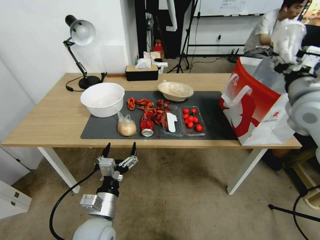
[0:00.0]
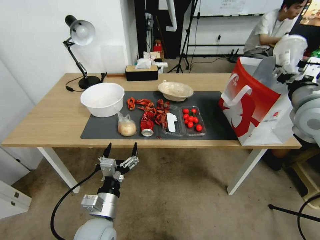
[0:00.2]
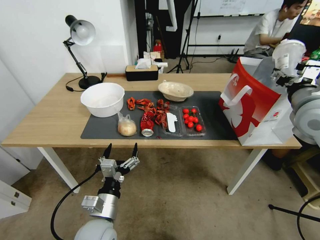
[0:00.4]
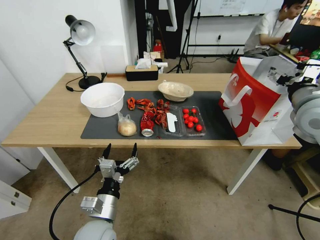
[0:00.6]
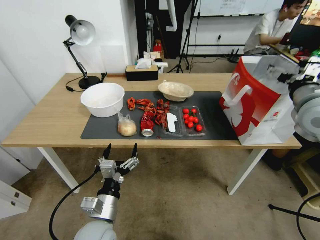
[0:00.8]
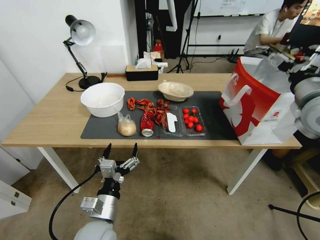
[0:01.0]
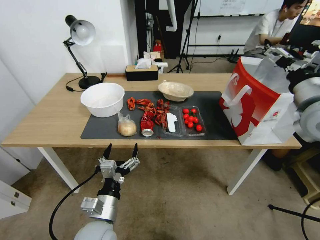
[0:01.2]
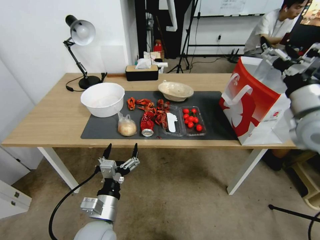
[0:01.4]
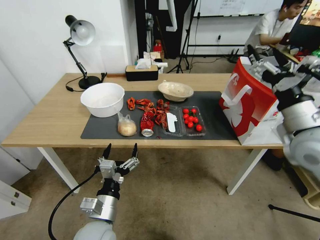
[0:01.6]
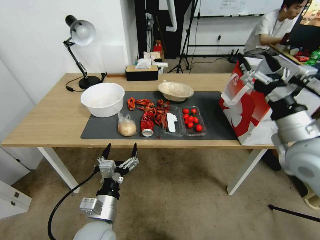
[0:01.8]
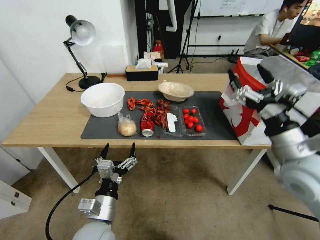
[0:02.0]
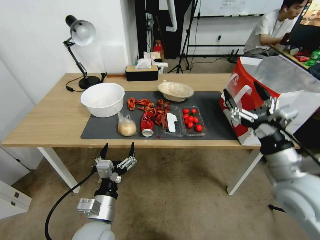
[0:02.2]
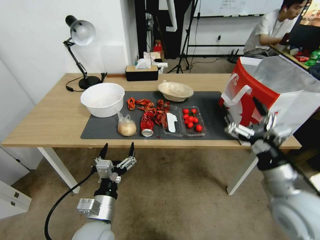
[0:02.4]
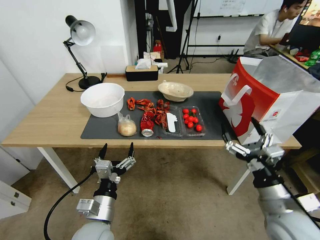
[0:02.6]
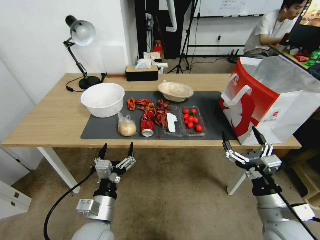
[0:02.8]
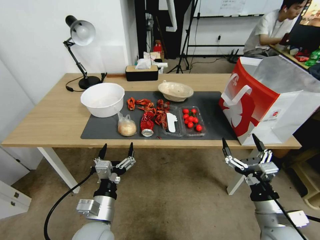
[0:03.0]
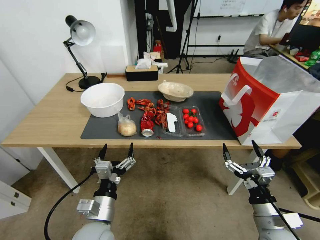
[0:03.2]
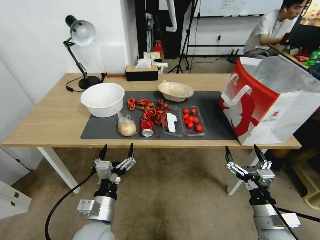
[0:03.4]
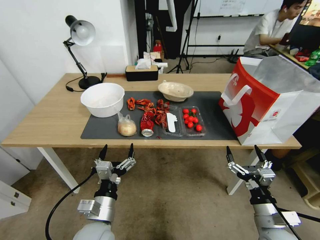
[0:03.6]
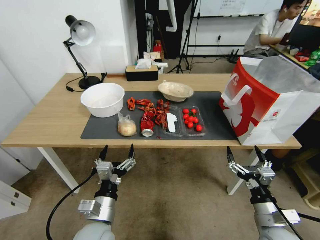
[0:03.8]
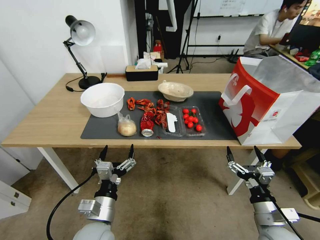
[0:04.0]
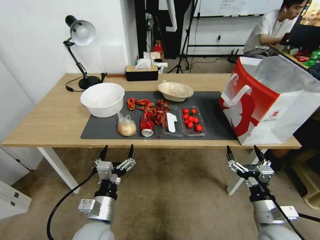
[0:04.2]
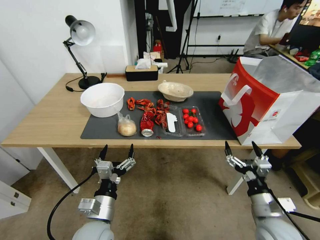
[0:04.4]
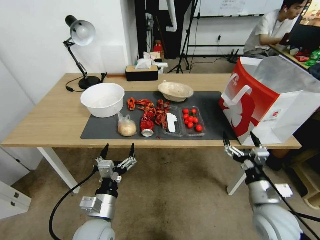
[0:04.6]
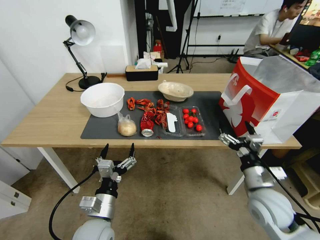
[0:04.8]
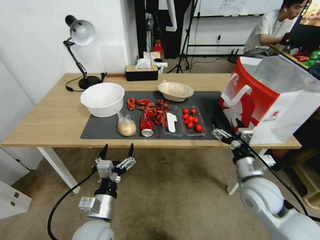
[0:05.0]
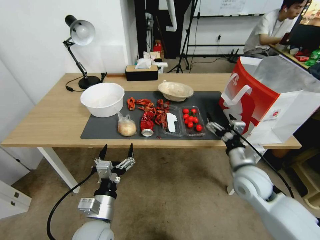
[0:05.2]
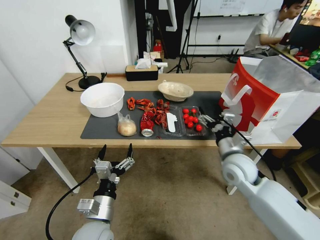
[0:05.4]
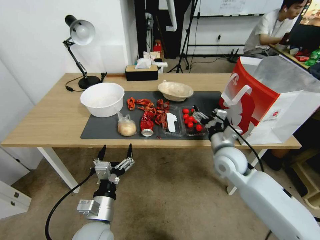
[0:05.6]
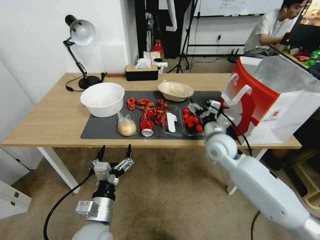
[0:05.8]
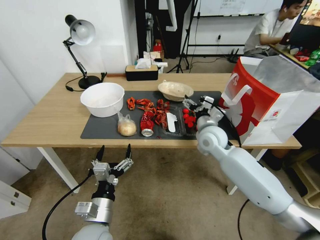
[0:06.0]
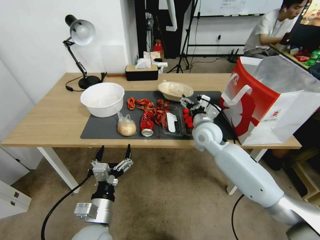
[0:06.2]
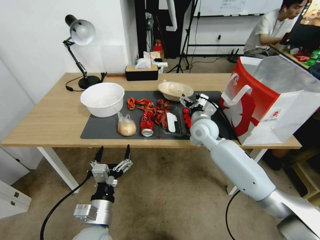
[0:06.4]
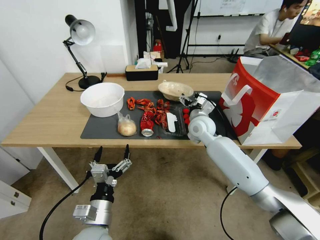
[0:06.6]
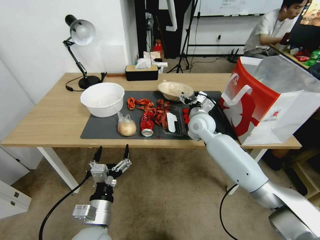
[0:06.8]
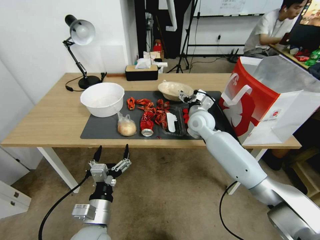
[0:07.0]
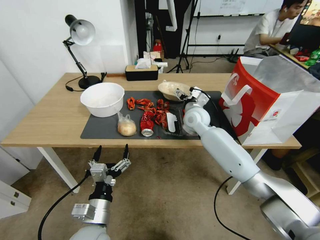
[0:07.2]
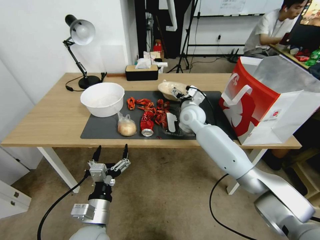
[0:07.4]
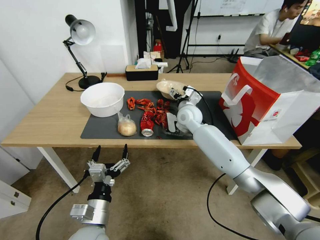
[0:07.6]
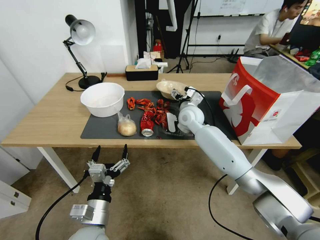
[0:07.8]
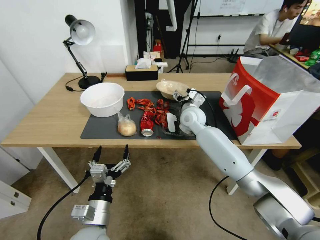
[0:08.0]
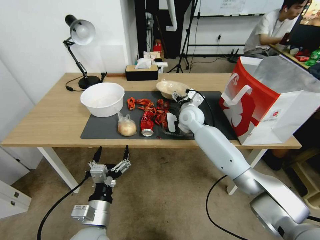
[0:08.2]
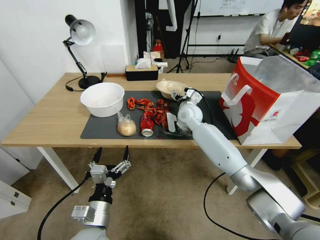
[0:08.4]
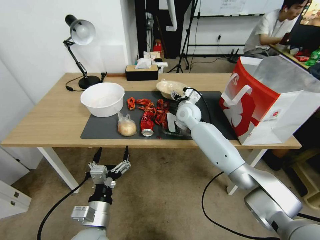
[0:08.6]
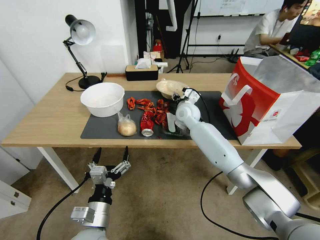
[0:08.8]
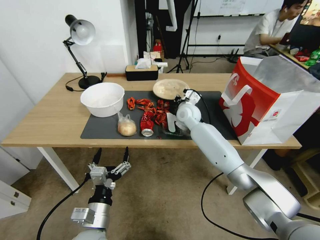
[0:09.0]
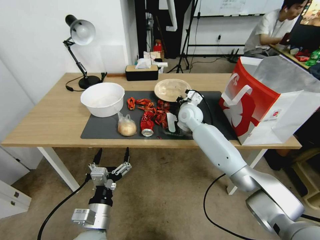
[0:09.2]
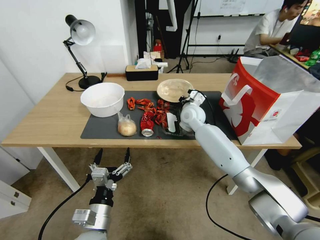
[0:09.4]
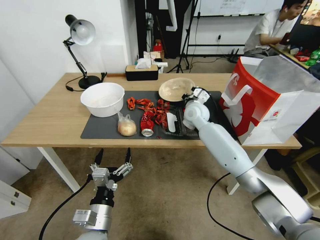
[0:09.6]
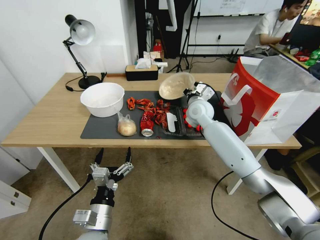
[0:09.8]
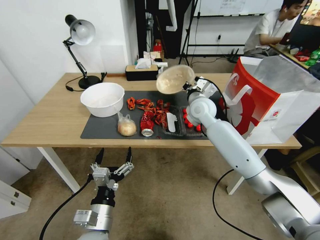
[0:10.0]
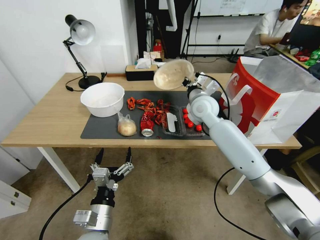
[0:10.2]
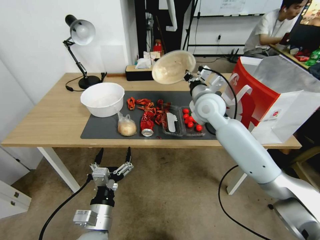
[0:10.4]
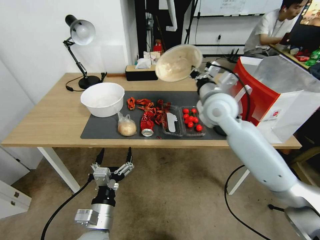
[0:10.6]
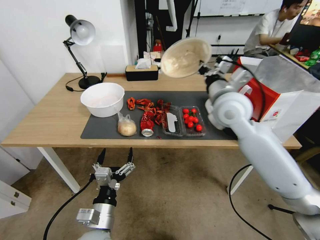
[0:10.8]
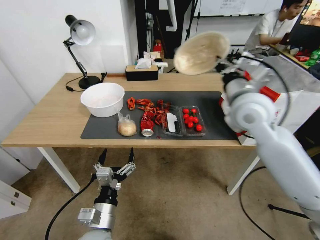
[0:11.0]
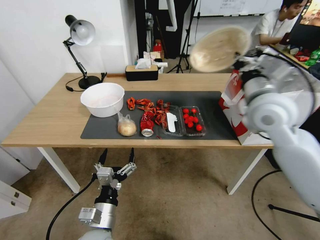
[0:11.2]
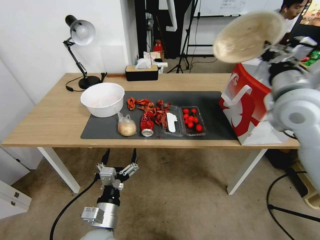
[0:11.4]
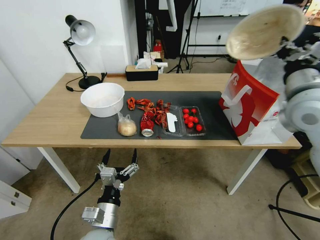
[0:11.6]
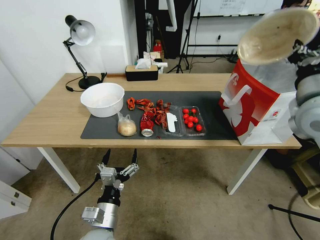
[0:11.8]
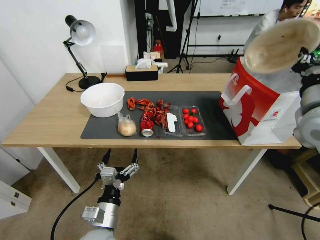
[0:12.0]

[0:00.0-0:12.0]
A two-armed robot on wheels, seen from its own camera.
0:00.0 to 0:01.6: The right gripper goes some 5 cm backward, and opens.
0:01.6 to 0:03.0: The right gripper shifts some 25 cm downward and backward.
0:03.0 to 0:04.4: There are only small adjustments of the grippers.
0:04.4 to 0:06.0: The right gripper is displaced forward and to the left by approximately 30 cm.
0:06.0 to 0:07.6: The right gripper moves forward and to the left, roughly 10 cm.
0:07.6 to 0:09.0: The right gripper closes up.
0:09.0 to 0:10.4: The right gripper goes roughly 15 cm upward and backward.
0:10.4 to 0:12.0: The right gripper moves to the right and backward, roughly 25 cm.

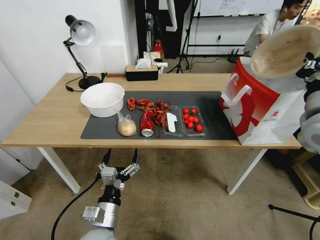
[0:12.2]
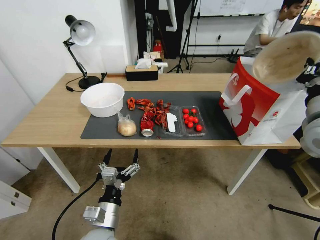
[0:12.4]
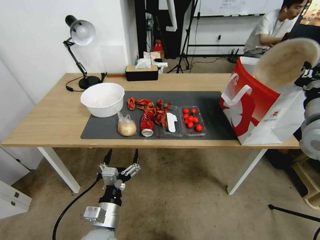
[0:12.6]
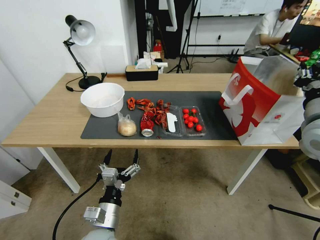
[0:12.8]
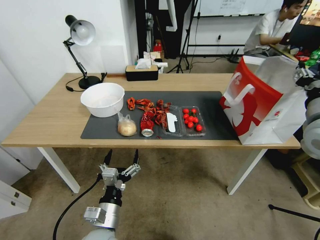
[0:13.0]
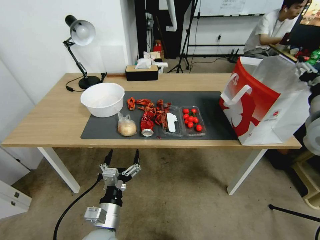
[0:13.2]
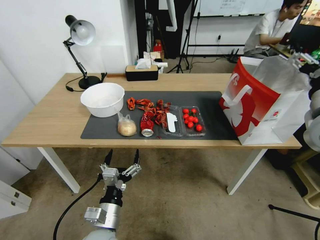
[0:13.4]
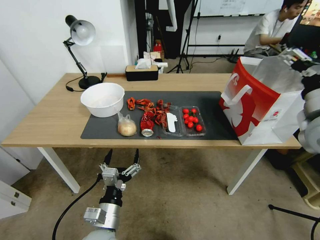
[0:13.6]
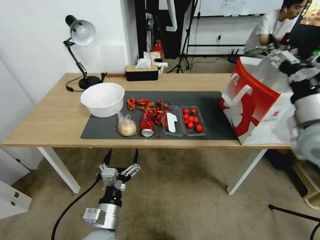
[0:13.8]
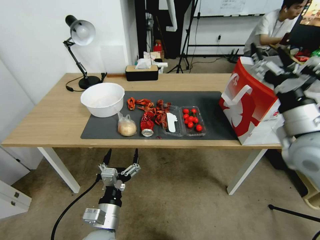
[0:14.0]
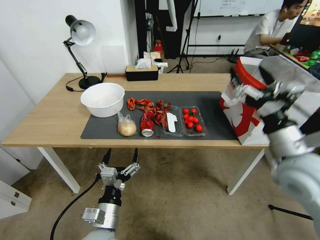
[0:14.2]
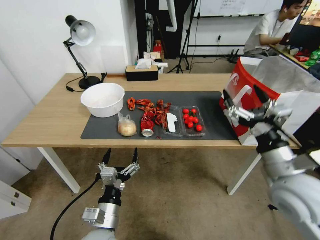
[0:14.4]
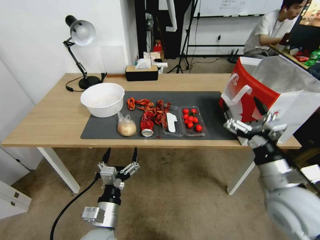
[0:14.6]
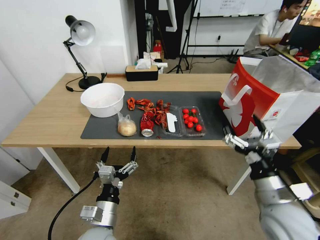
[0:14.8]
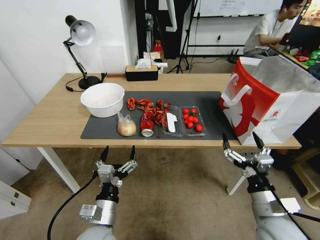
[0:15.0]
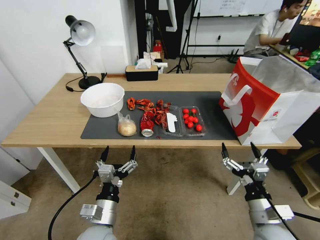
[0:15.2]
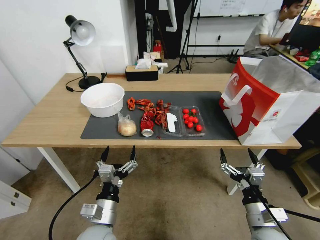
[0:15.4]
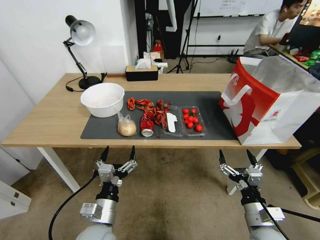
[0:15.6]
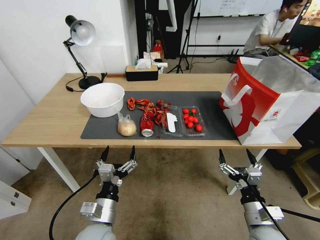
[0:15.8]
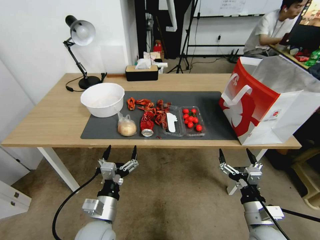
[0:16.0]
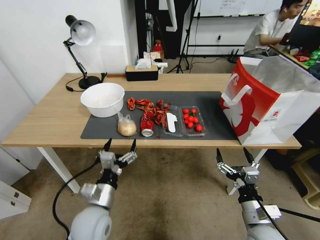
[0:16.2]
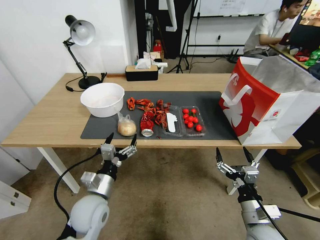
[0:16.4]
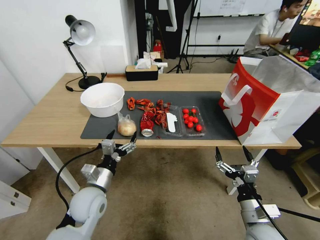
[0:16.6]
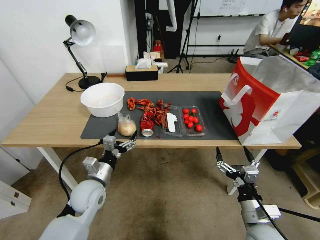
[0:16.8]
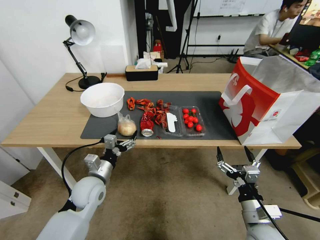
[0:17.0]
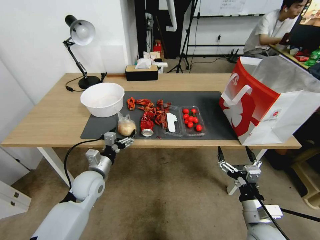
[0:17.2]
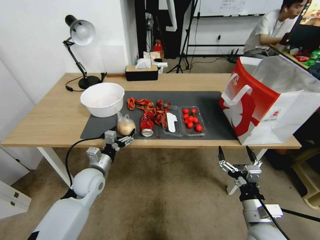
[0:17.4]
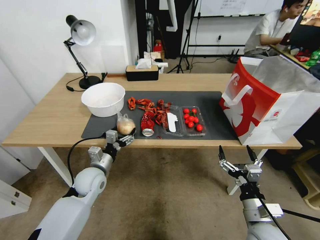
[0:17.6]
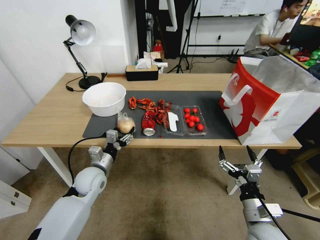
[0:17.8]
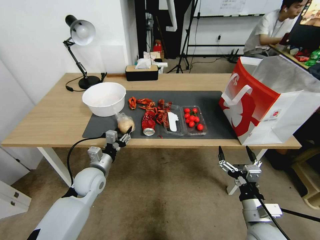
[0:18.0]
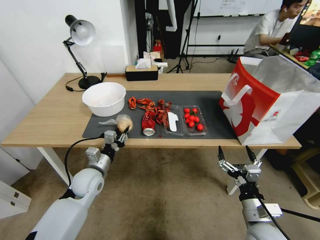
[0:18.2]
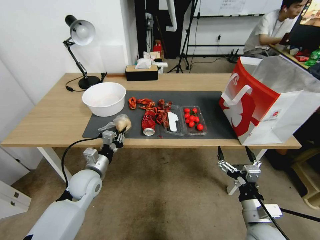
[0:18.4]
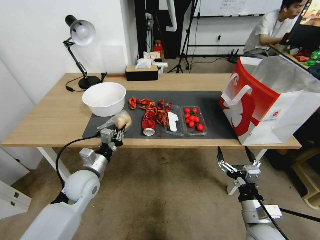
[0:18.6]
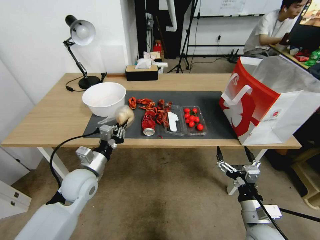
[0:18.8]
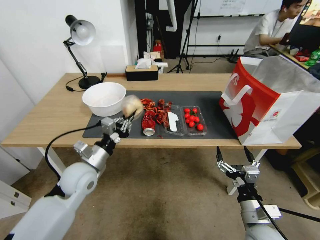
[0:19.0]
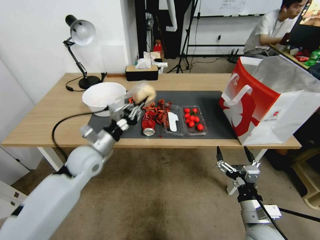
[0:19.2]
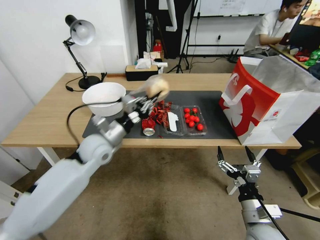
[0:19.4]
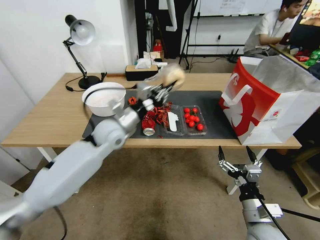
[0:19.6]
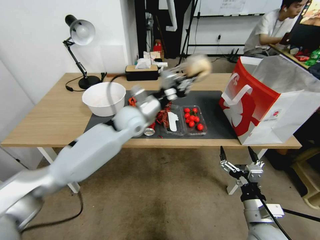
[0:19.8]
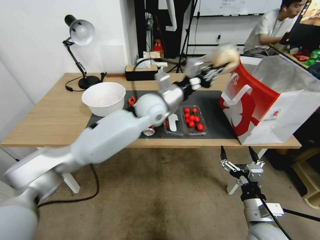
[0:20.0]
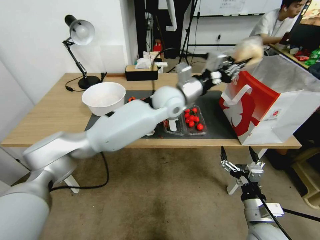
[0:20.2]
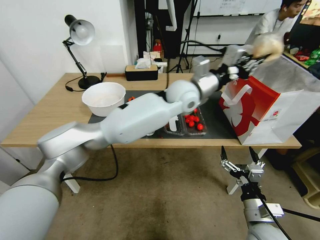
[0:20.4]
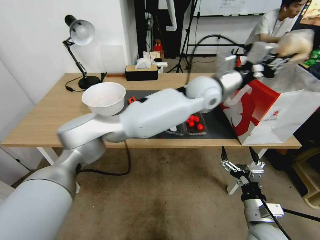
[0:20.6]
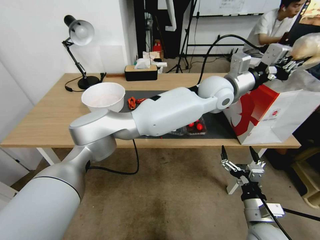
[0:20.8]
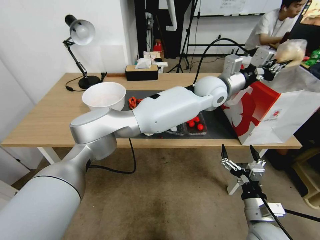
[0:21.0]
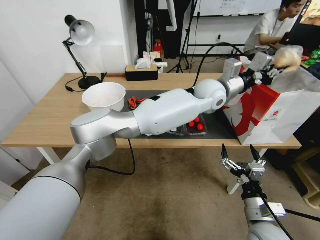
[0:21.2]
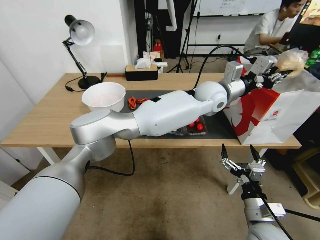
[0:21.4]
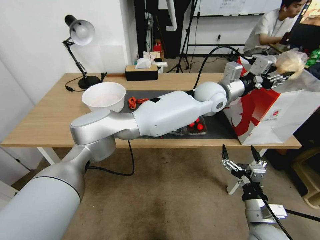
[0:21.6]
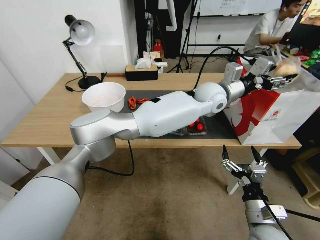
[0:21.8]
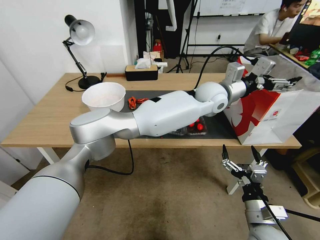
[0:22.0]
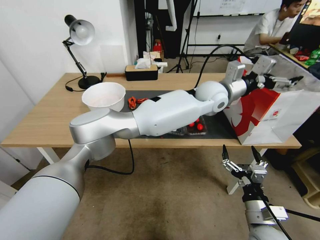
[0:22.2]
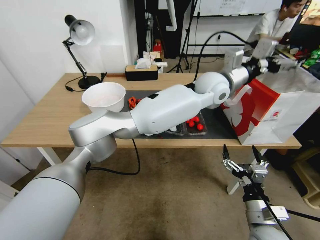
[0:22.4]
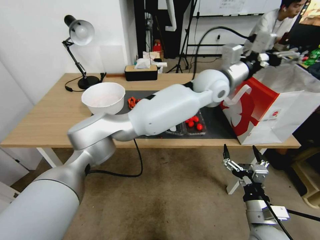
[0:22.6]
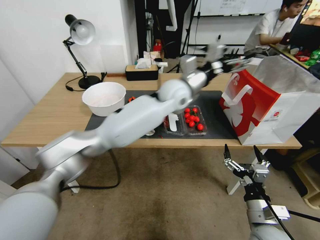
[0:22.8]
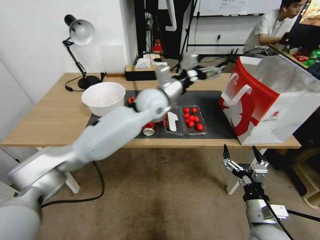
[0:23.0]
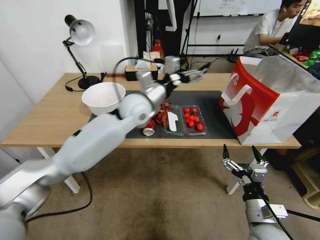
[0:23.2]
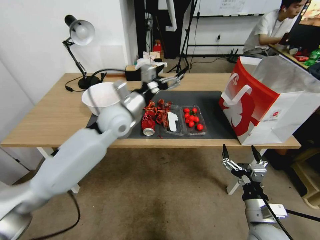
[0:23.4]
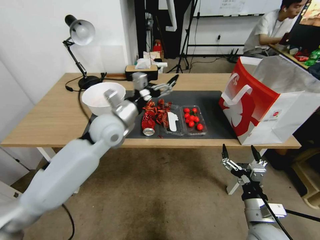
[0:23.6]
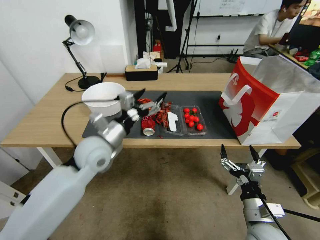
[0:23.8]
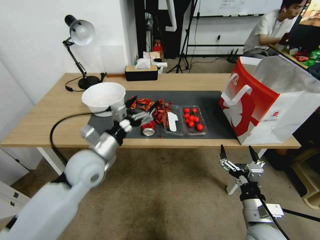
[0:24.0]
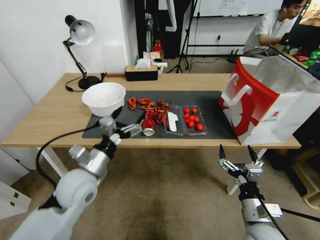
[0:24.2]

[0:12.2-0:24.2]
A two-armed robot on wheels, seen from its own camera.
0:12.2 to 0:13.8: The right gripper opens.
0:13.8 to 0:15.2: The right gripper heads downward and backward, covering approximately 30 cm.
0:15.2 to 0:16.6: The left gripper is displaced forward by about 10 cm.
0:16.6 to 0:18.2: The left gripper moves forward, some 5 cm, and closes up.
0:18.2 to 0:19.8: The left gripper heads upward, to the right and forward, covering approximately 25 cm.
0:19.8 to 0:21.2: The left gripper is displaced to the right by some 25 cm.
0:21.2 to 0:22.6: The left gripper changes place by about 5 cm, and opens up.
0:22.6 to 0:24.2: The left gripper moves to the left, backward and downward, approximately 40 cm.
